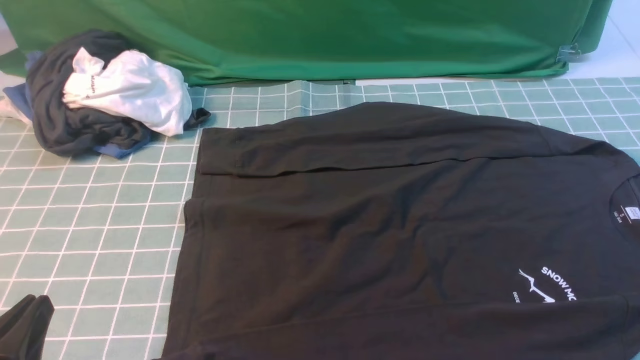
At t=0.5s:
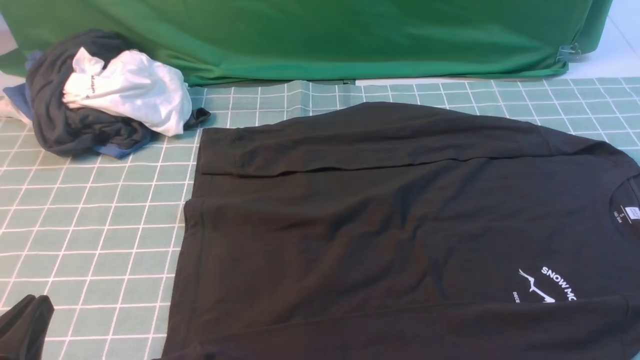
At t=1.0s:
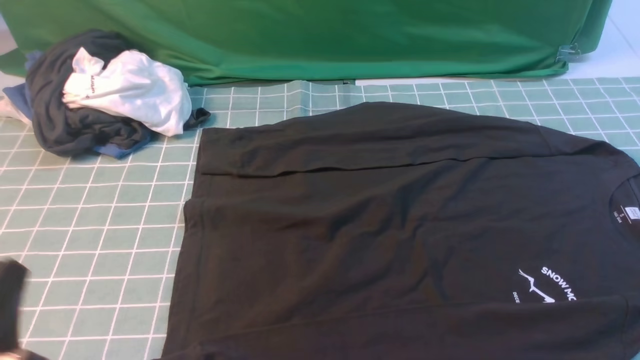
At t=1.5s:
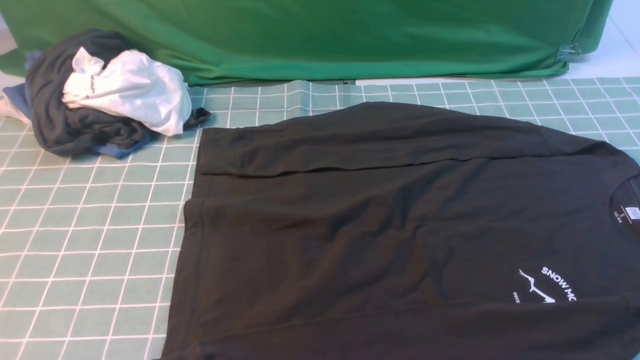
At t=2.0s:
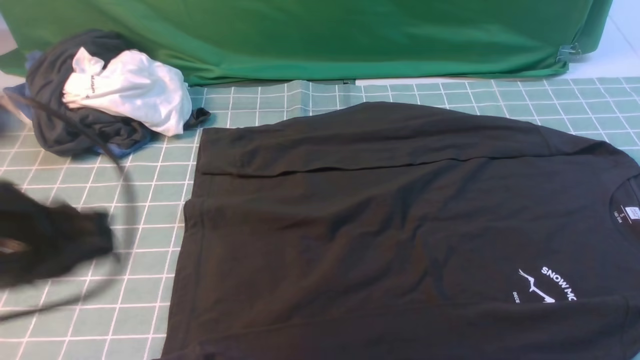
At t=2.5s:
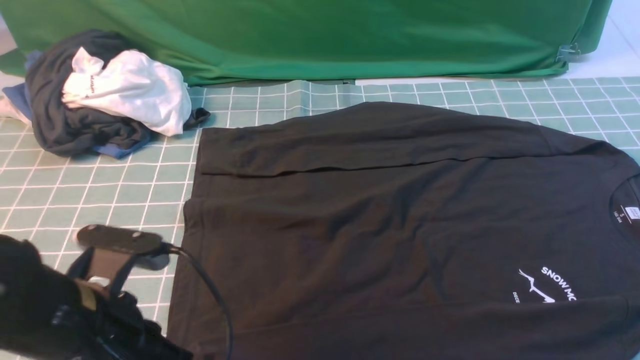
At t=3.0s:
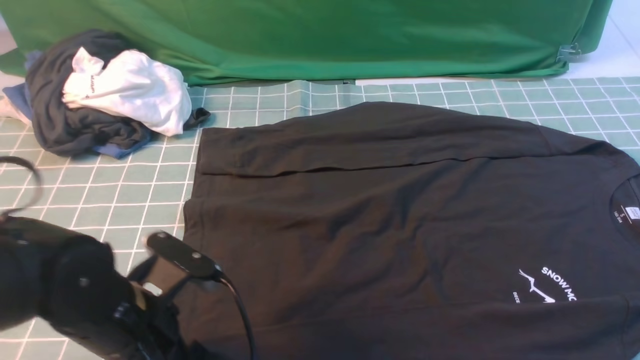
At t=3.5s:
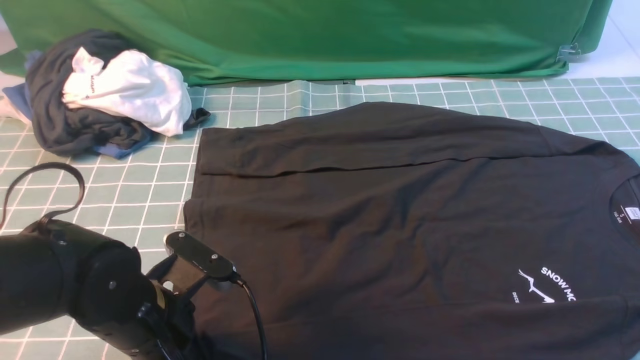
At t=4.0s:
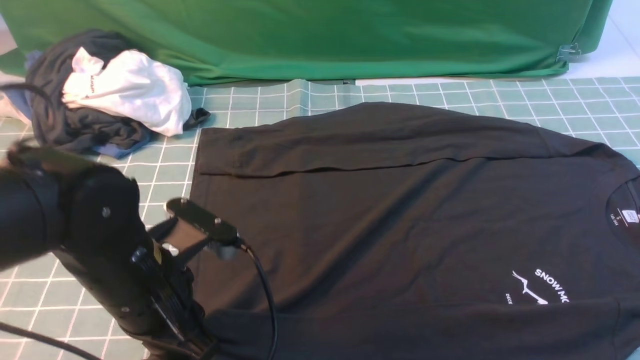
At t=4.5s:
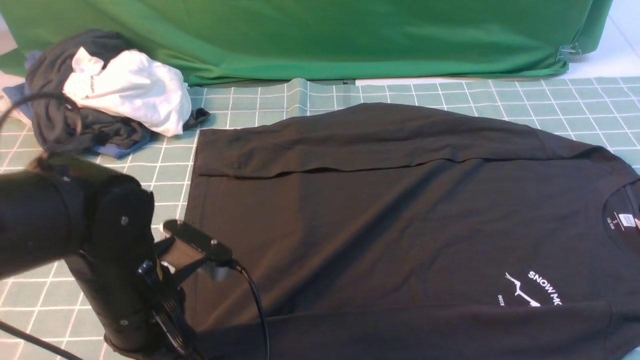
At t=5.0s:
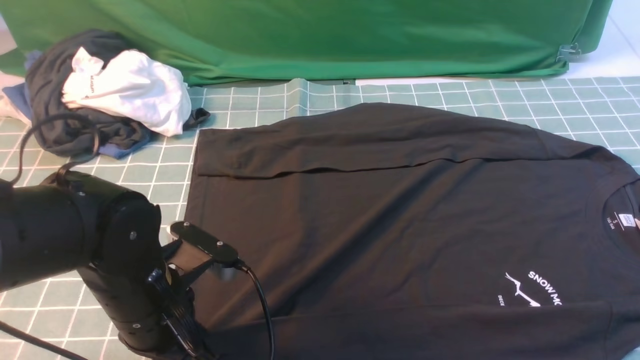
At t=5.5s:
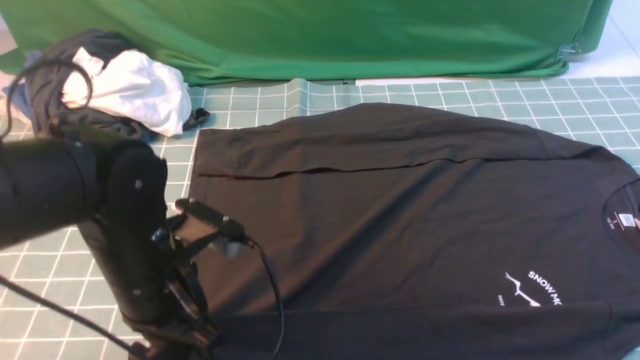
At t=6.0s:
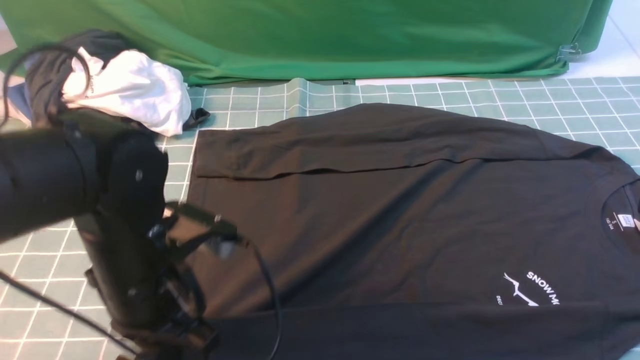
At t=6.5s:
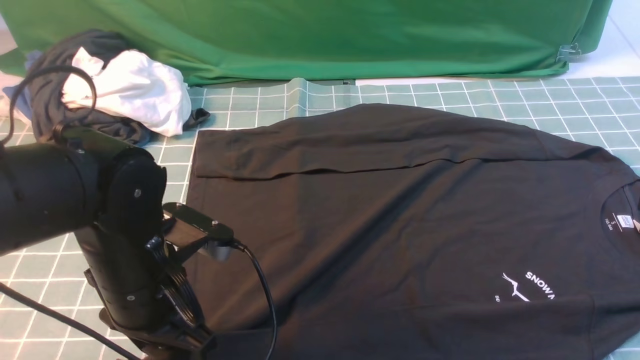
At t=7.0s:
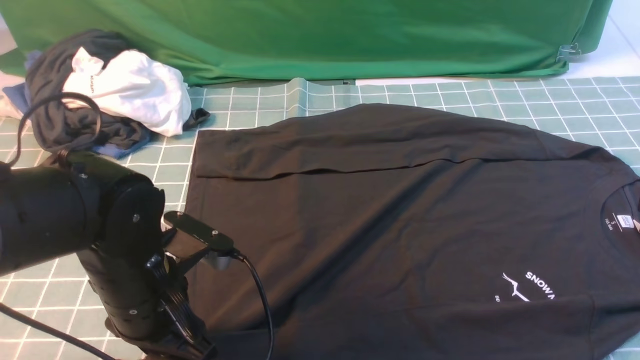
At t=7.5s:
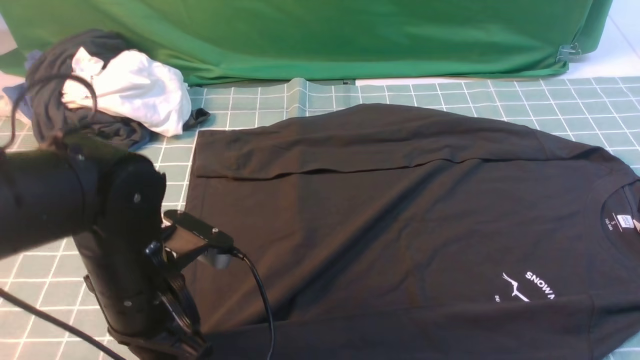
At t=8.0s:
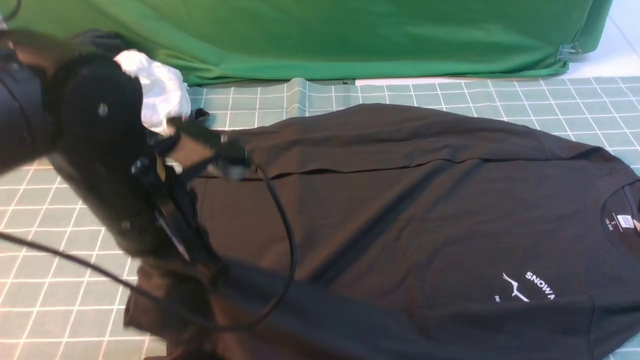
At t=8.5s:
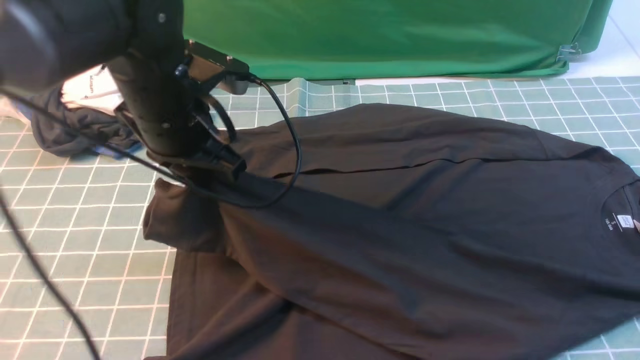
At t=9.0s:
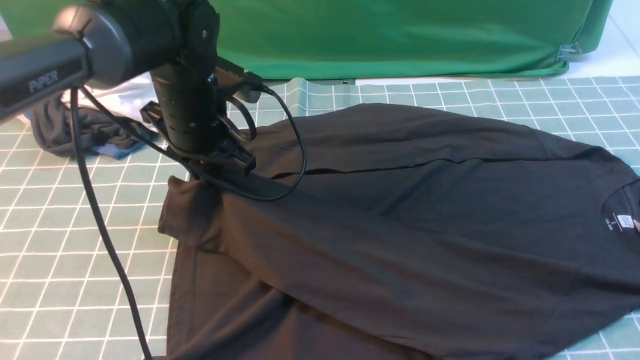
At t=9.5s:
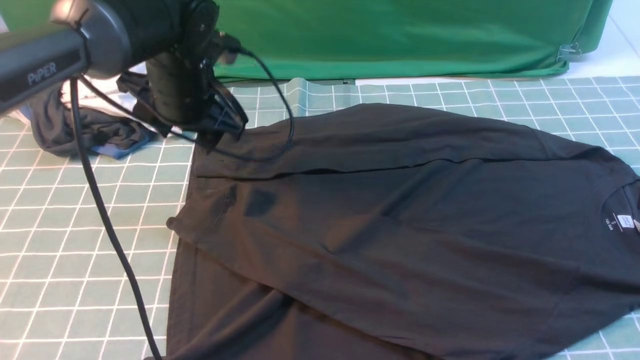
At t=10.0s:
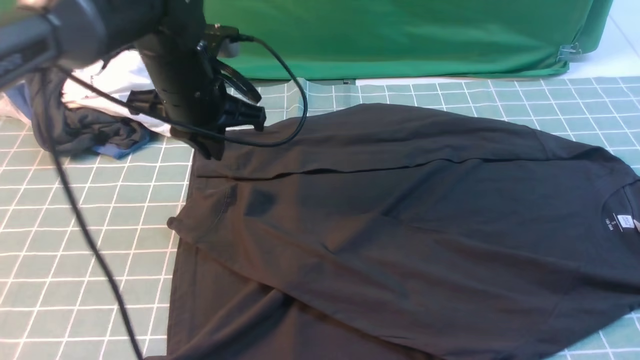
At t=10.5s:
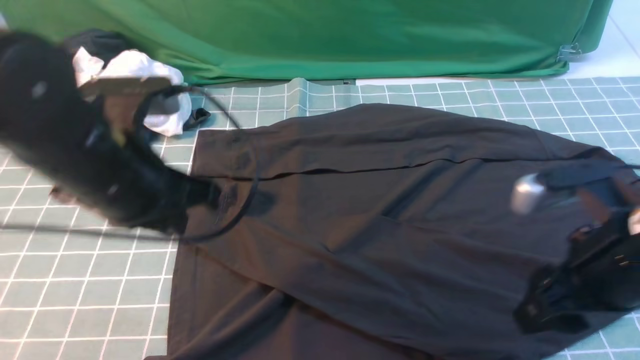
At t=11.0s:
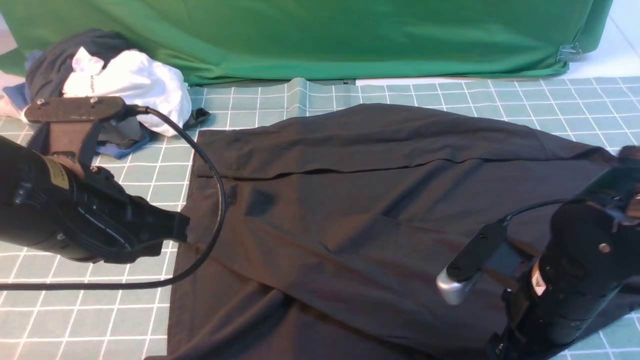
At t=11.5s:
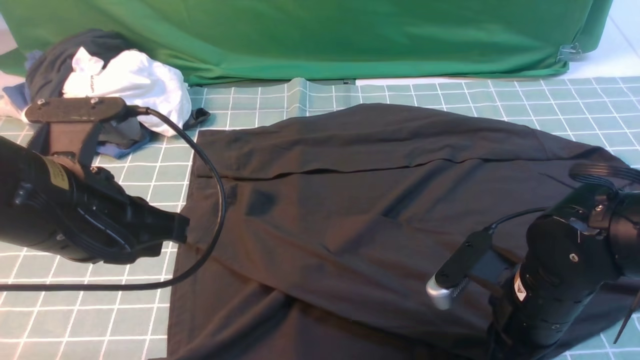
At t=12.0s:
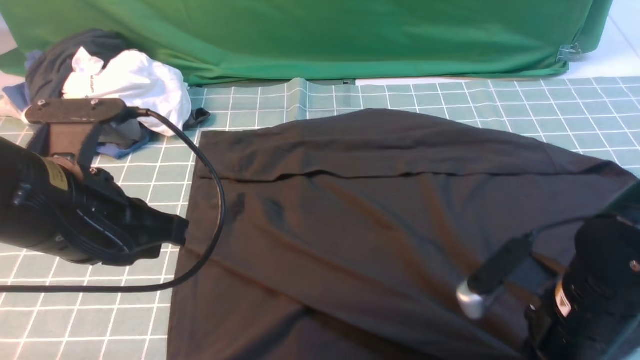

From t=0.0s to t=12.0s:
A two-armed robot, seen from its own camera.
Step, from t=0.0s to t=7.0s: use the left arm to clamp the cuff closest to it.
Step, from t=8.0s to t=9.5s: use the left arm to drag and place the cuff at the centered position on the left edge of the fabric.
From t=0.0s to t=2.0s: The left gripper goes some 15 cm upward and forward.
From t=2.0s to t=4.0s: The left gripper goes some 10 cm downward and to the right, and opens, then closes once more, while the right gripper is displaced upward, to the left and forward by about 15 cm.
From t=4.0s to t=6.0s: The left gripper opens, then closes once more.
From t=6.0s to t=8.0s: The left gripper is displaced upward by approximately 5 cm, and opens, then closes once more.
From t=8.0s to t=10.0s: The right gripper ends up some 5 cm from where it was. The left gripper goes approximately 15 cm forward, and opens and closes again.
From t=10.0s to t=12.0s: The left gripper is displaced backward by approximately 15 cm; the right gripper shifts roughly 15 cm downward and to the left, and opens, then closes once more.

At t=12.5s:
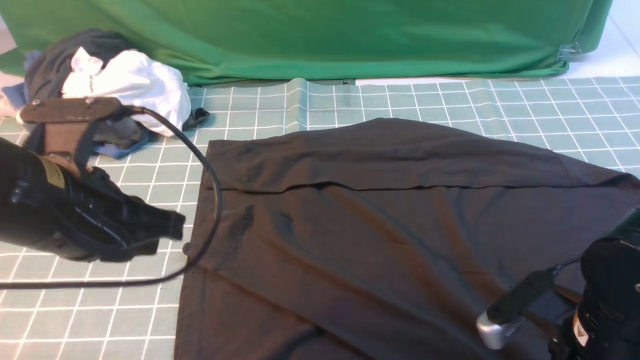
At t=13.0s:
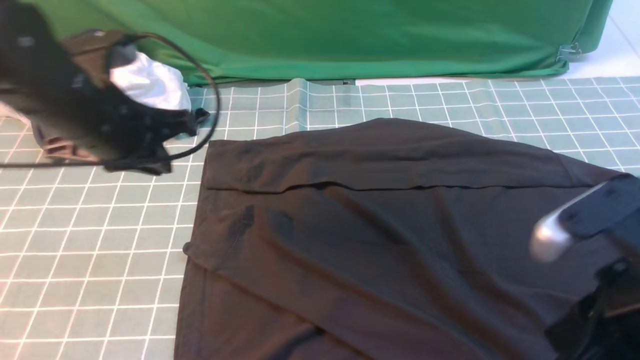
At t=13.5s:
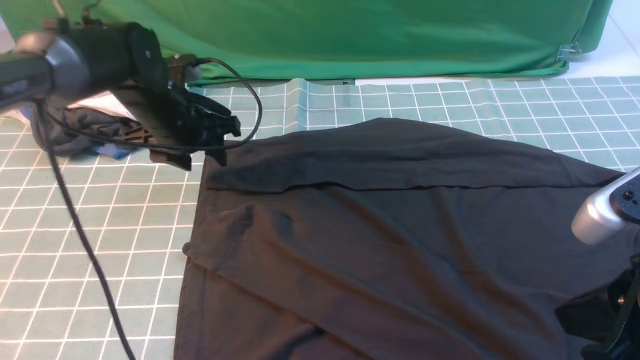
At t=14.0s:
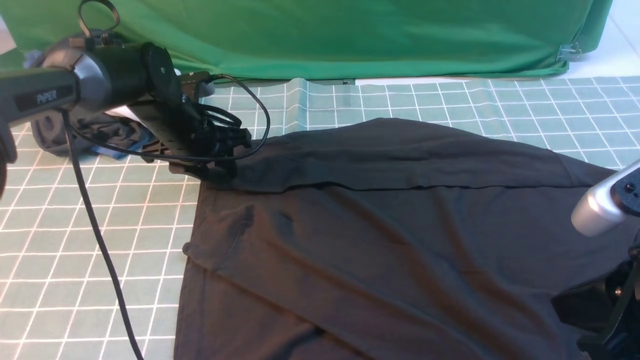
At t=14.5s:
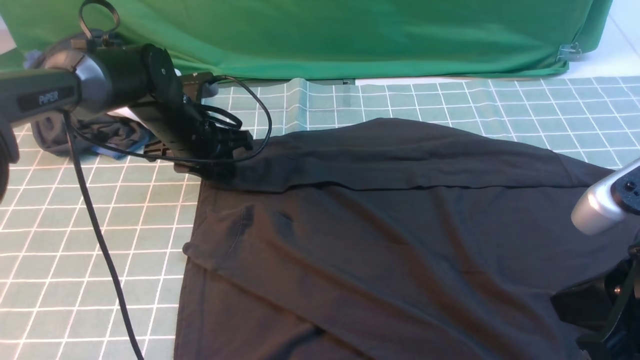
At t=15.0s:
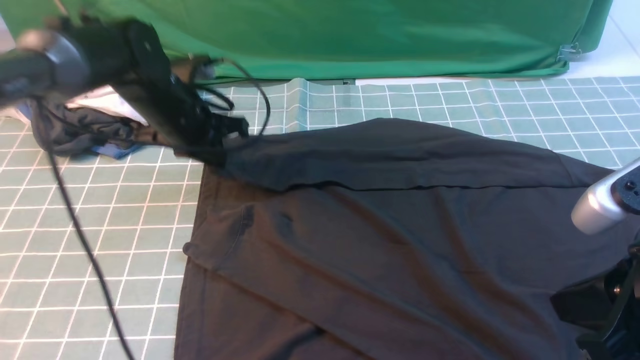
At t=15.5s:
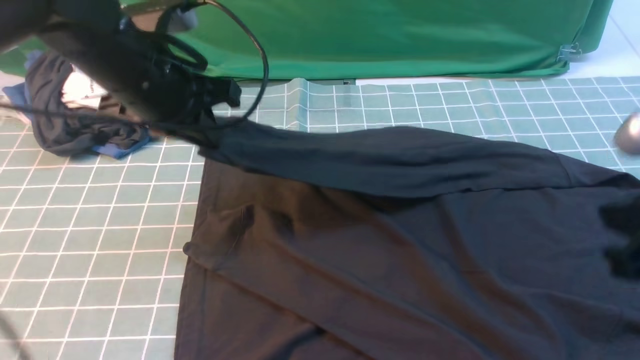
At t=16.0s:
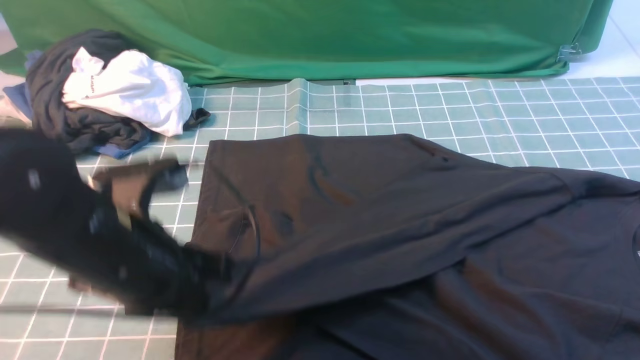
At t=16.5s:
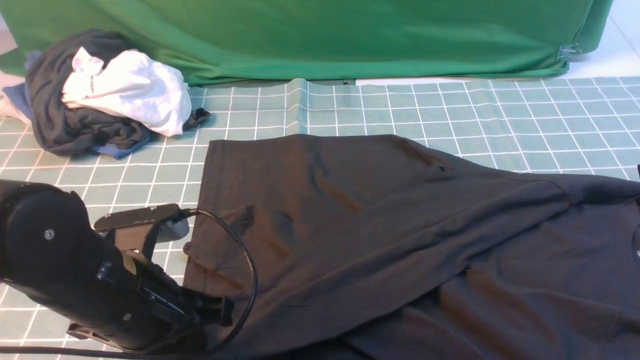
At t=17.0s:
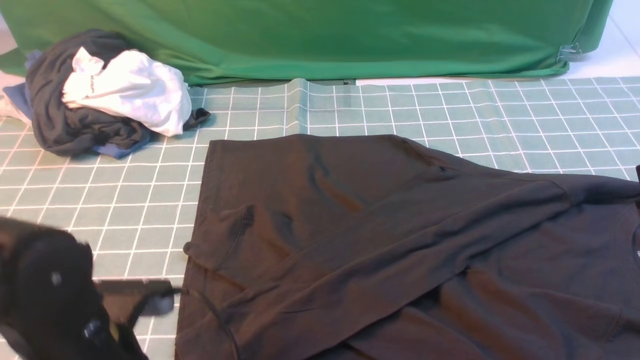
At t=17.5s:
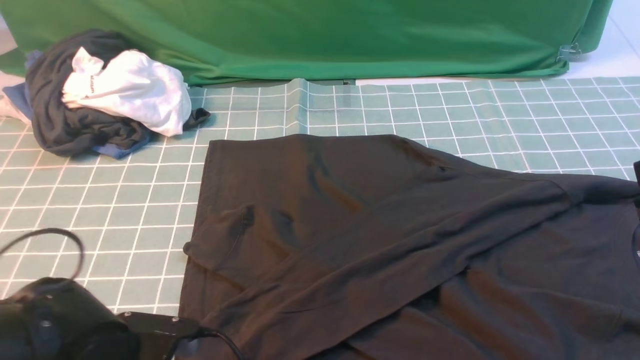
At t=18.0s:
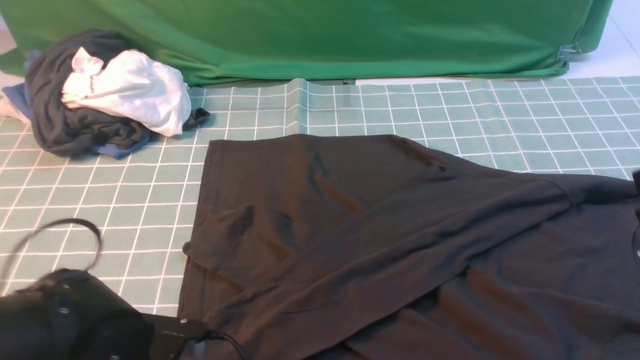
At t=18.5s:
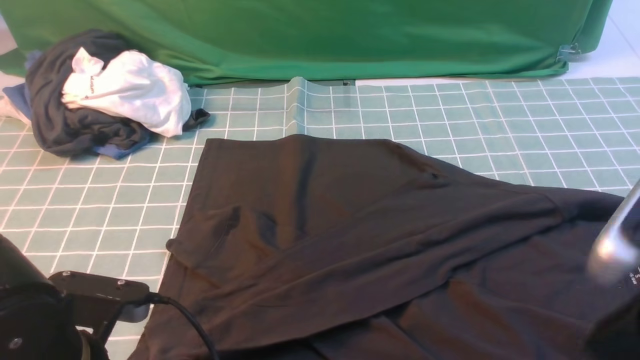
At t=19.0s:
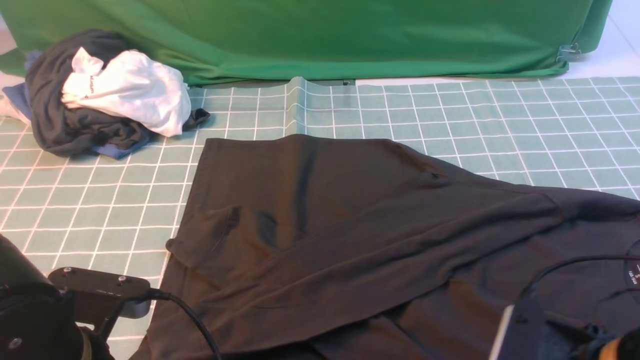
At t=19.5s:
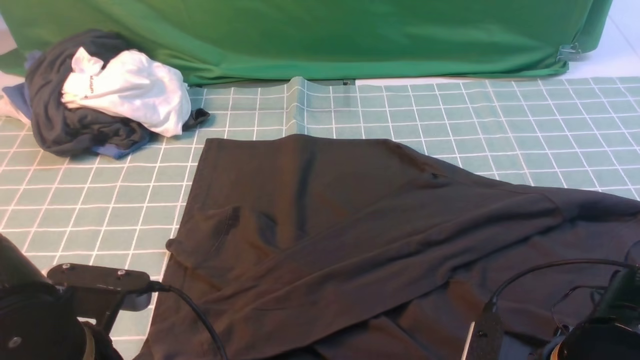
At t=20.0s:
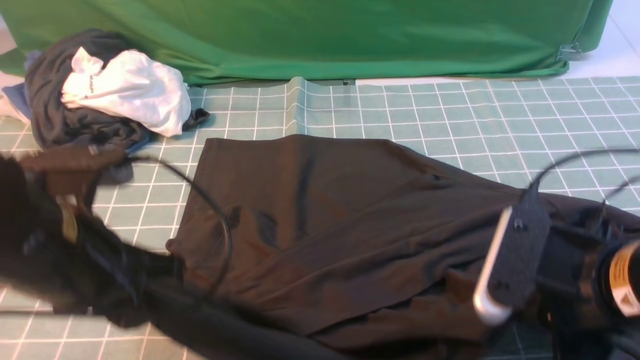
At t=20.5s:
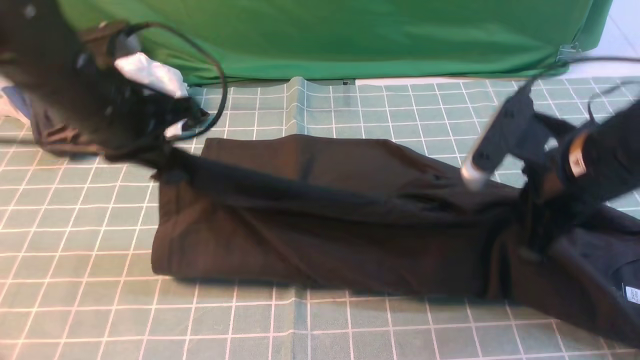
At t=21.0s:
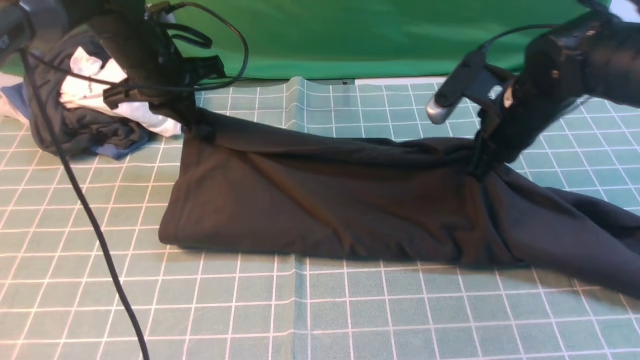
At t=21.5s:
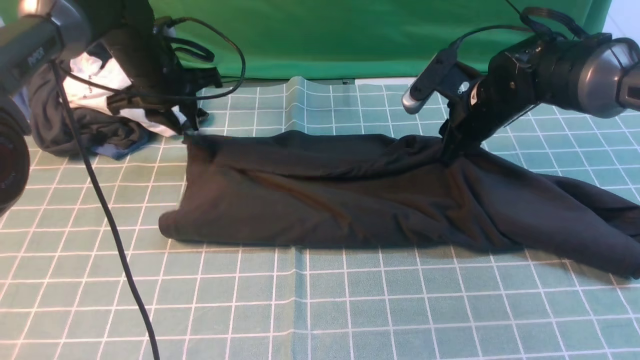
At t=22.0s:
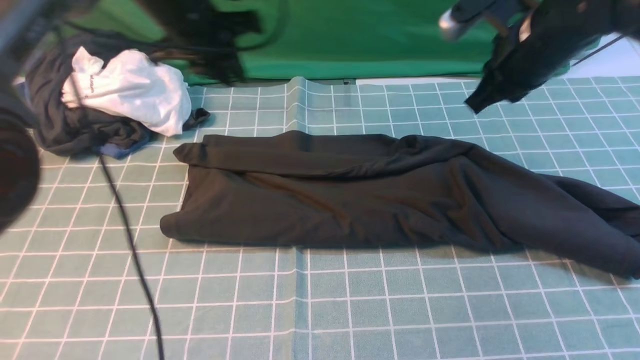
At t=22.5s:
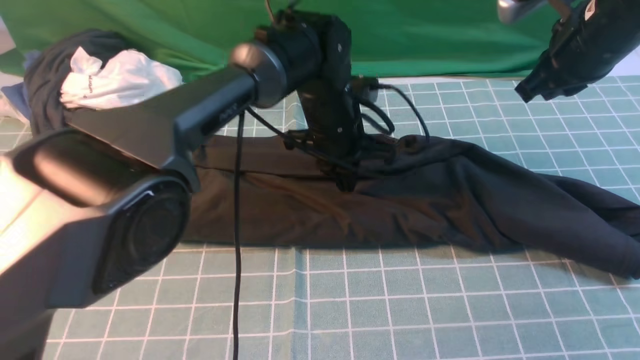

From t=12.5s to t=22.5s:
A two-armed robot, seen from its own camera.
Step, from t=12.5s to t=15.0s: use the left arm to clamp the cuff farthest from it.
Step, from t=15.5s to t=17.0s: use the left arm to drag and drop the cuff onto the cuff closest to the left arm.
Step, from t=17.5s to t=19.5s: use both arms simultaneously to clamp the lower edge of the clothing fabric.
Step, from t=20.0s to t=21.5s: use both arms to drag the lower edge of the fabric forward and fold it over the upper edge.
From t=12.5s to t=14.5s: The right gripper moves upward, some 10 cm, and closes its fingers; the left gripper shifts roughly 25 cm forward and downward, and opens up.
From t=14.5s to t=16.5s: The left gripper is displaced backward by approximately 25 cm; the right gripper moves some 5 cm.
From t=16.5s to t=18.5s: The right gripper goes some 5 cm downward. The left gripper heads backward, covering some 5 cm, and opens, then closes again.
From t=18.5s to t=20.5s: The right gripper travels forward by roughly 15 cm, and opens, then closes again. Meanwhile the left gripper travels forward by some 20 cm.
From t=20.5s to t=22.5s: The left gripper goes about 25 cm to the right, forward and downward, and opens, then closes again. Meanwhile the right gripper heads forward, covering roughly 10 cm, and opens and closes again.
